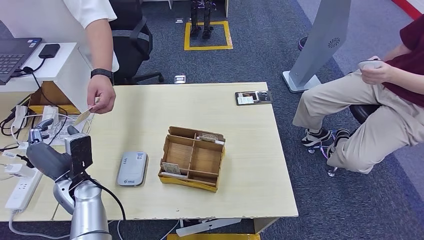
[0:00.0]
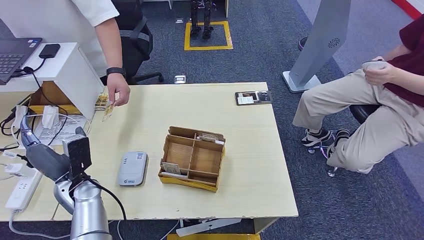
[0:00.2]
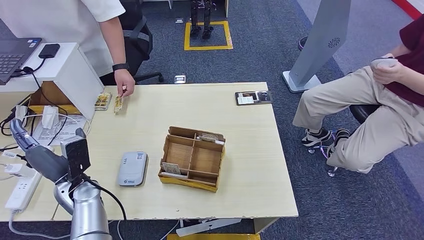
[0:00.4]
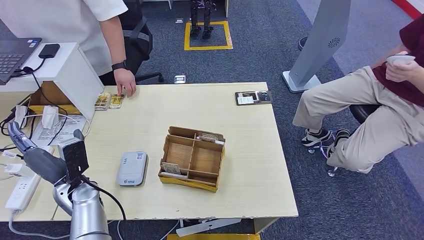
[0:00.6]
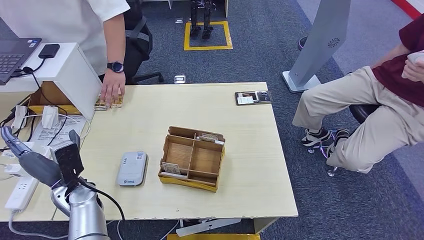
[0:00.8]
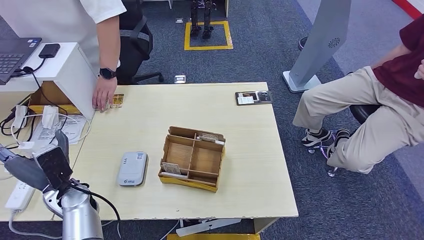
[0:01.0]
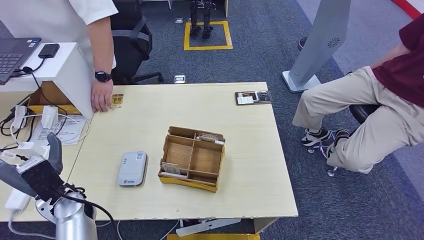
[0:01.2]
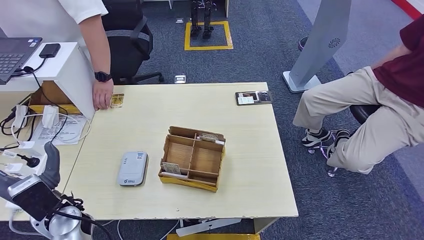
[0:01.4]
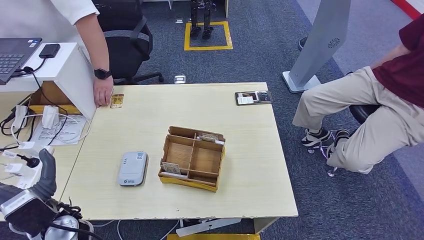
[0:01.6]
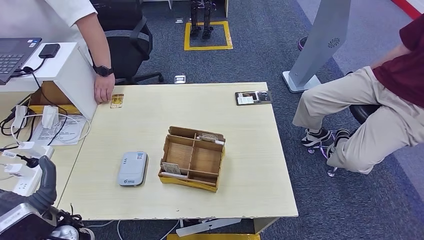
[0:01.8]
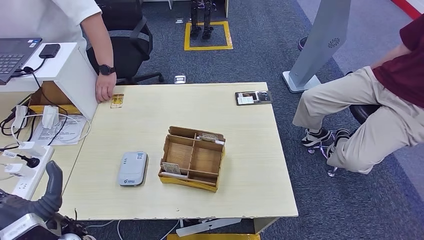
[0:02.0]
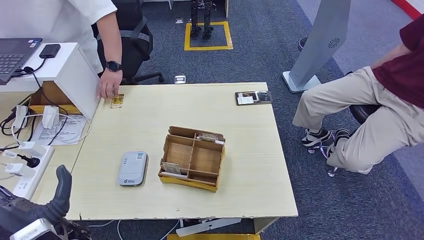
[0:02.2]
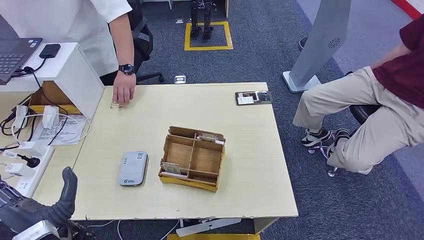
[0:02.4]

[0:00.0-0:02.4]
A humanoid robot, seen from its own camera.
Step, 0:00.0 to 0:02.2: Hand the room key to the person.
0:00.0 to 0:01.2: The hands make only small movements.
0:01.2 to 0:02.4: The left hand is displaced backward and to the right by some 10 cm.
